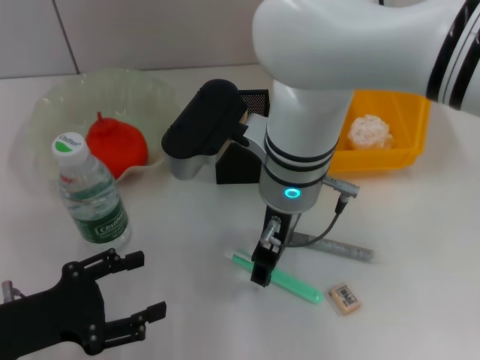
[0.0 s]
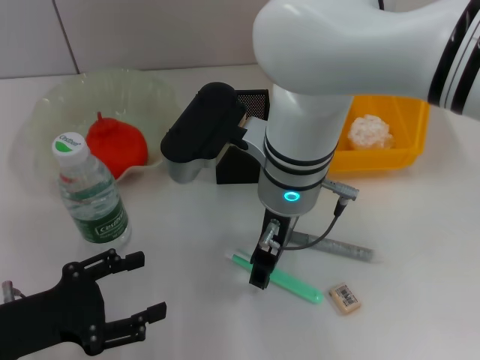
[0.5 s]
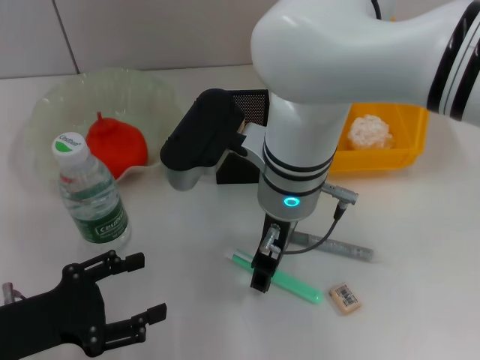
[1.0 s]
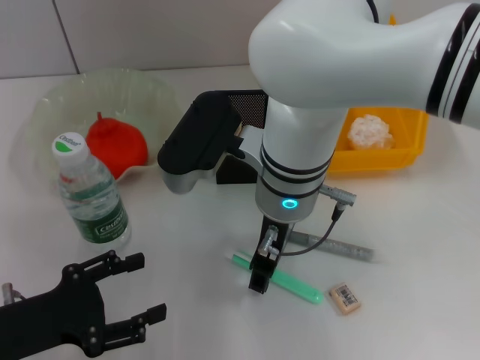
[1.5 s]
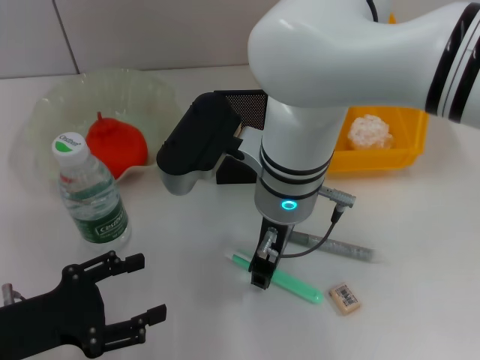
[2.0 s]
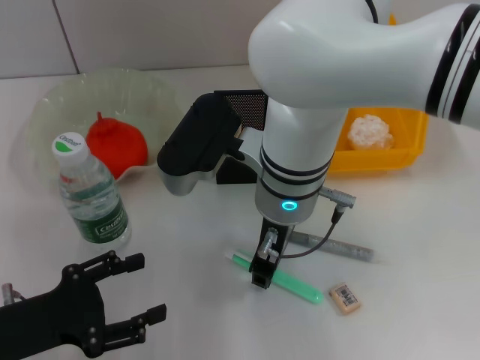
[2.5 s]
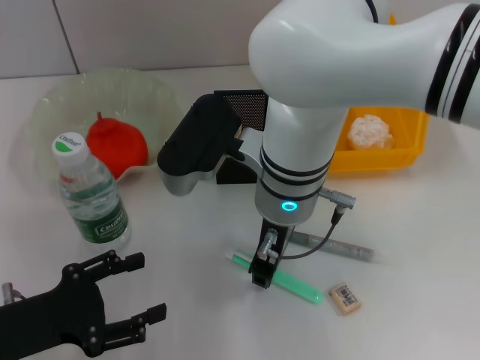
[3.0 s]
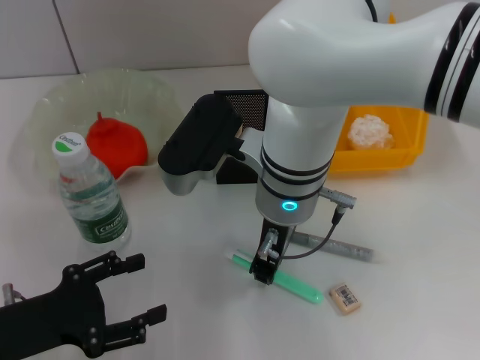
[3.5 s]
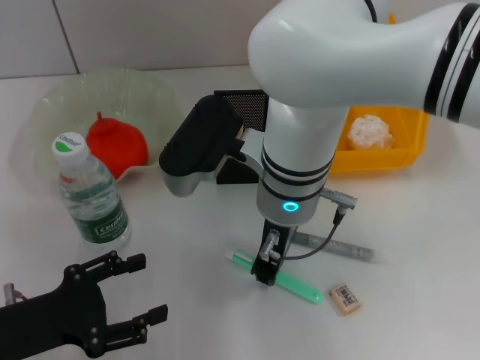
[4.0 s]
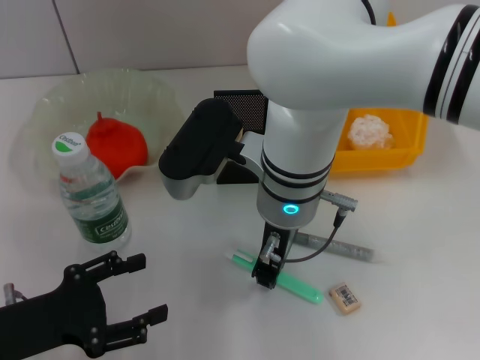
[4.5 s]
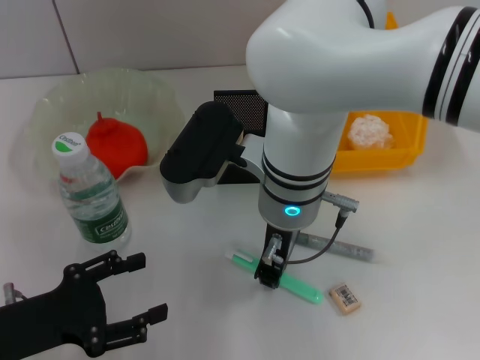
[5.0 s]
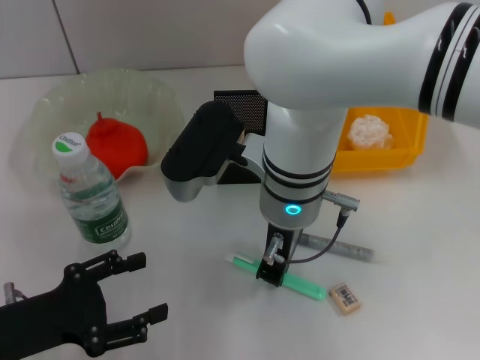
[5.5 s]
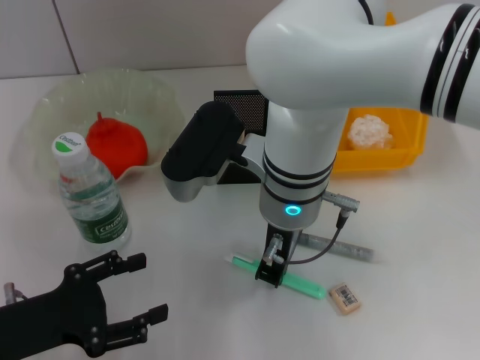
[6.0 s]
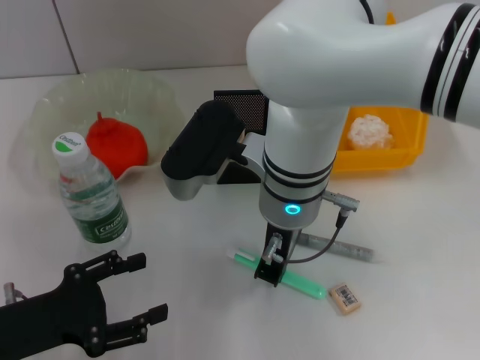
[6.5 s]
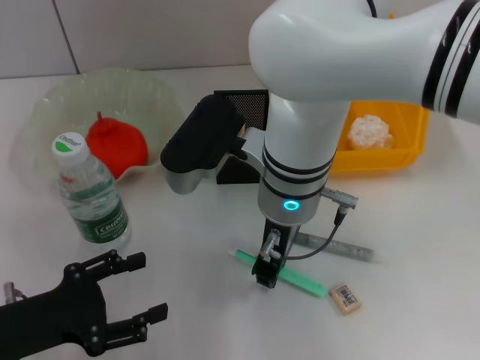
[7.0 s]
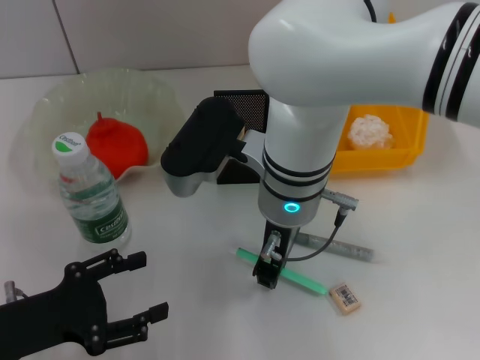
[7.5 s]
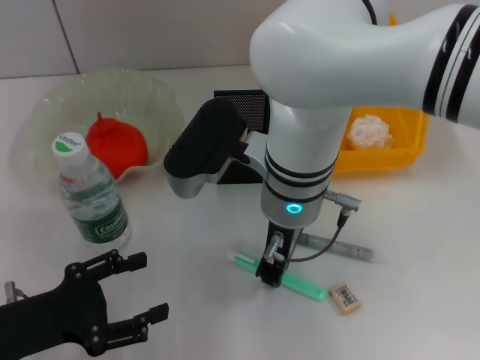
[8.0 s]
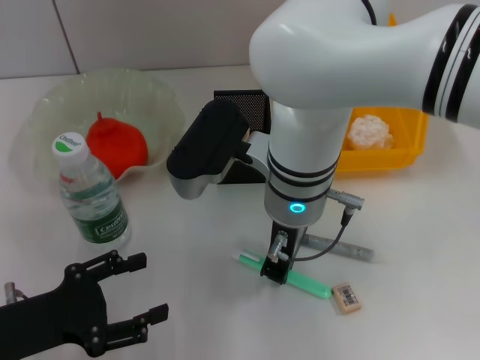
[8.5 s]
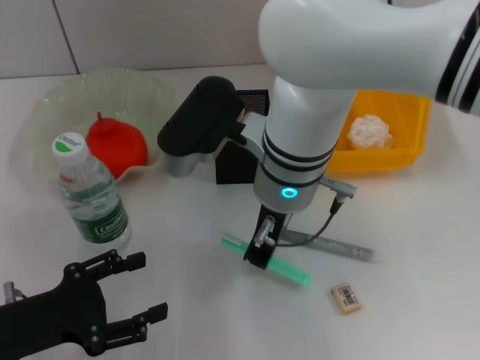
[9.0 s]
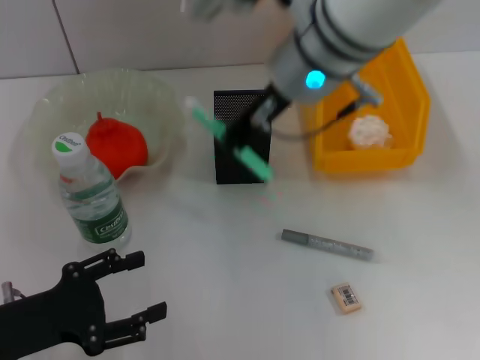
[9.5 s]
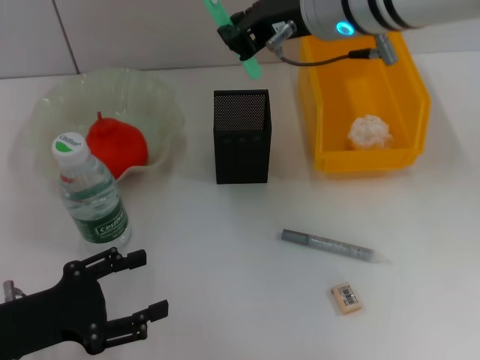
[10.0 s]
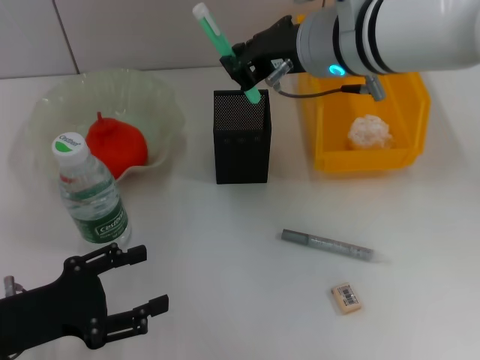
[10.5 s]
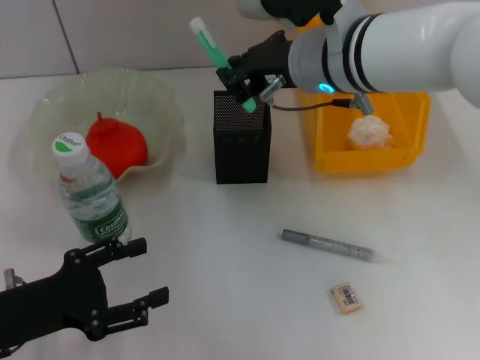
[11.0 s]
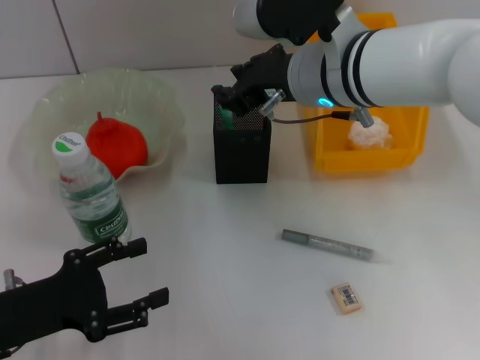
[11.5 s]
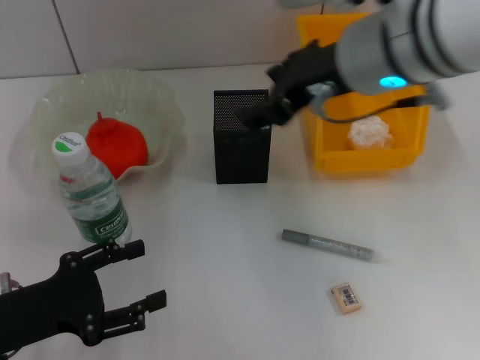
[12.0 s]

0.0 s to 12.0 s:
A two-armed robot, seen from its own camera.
Step, 0.0 to 8.5 s: Grab the blue utility knife with the right hand.
Step, 9.0 to 11.5 s: Place the blue utility knife into the pen holder with the right hand.
0.0 to 2.0 s: Neither gripper changes place.
2.0 to 4.0 s: The right gripper closes up.
4.0 to 8.0 s: Neither gripper changes place.
8.0 to 10.0 s: The right gripper moves upward and to the right, roughly 15 cm.
10.0 to 12.0 s: The right gripper opens up.

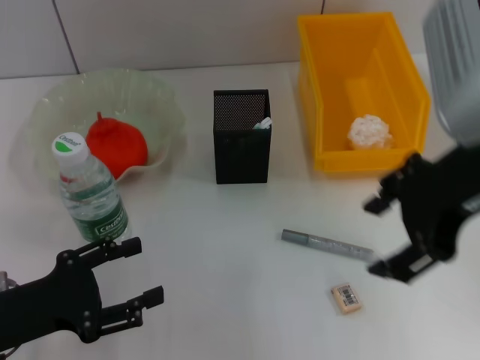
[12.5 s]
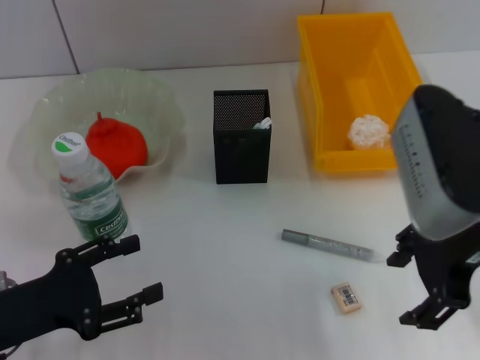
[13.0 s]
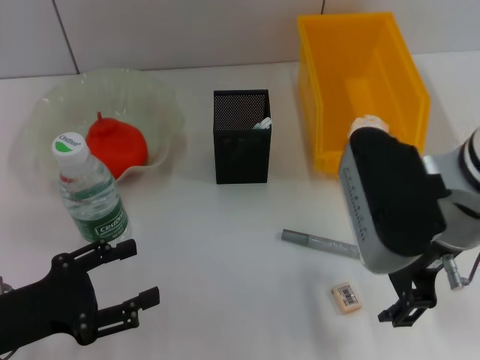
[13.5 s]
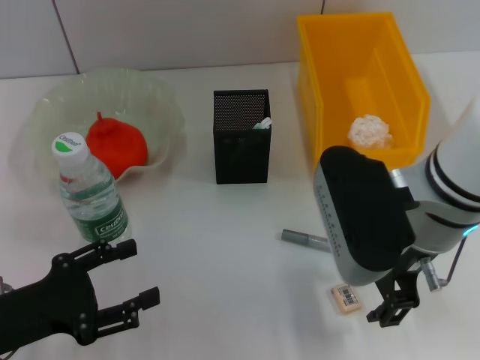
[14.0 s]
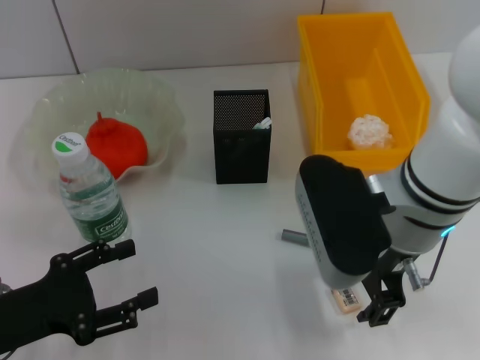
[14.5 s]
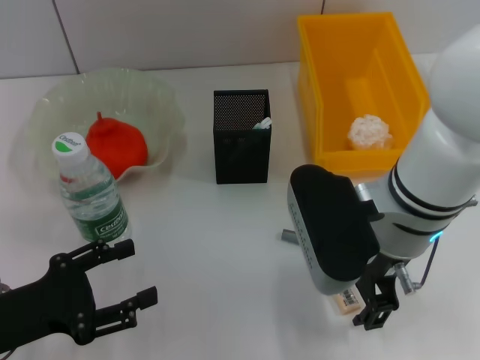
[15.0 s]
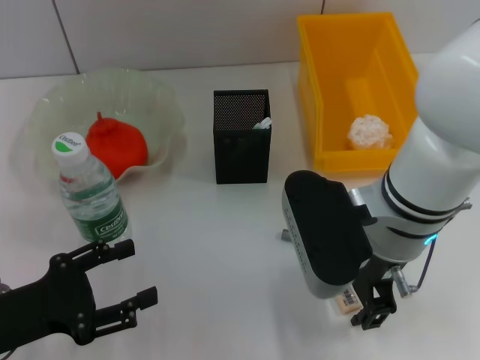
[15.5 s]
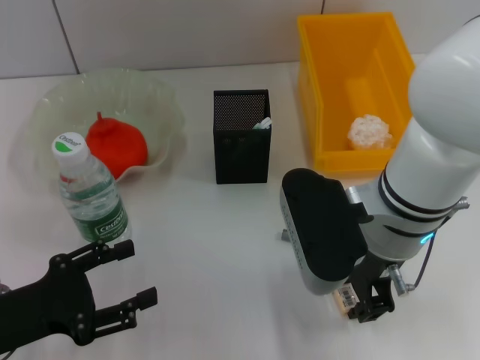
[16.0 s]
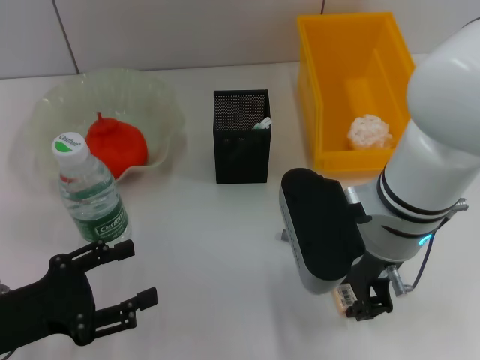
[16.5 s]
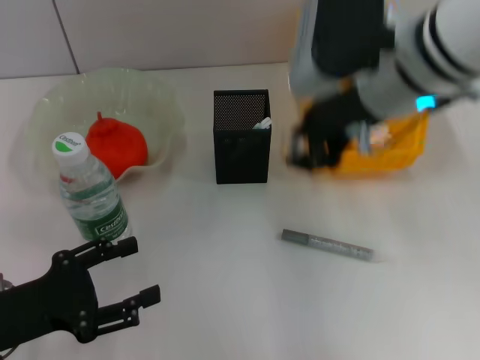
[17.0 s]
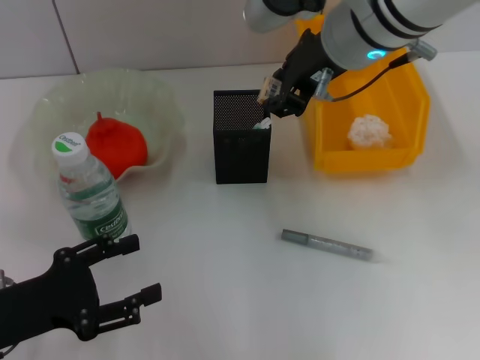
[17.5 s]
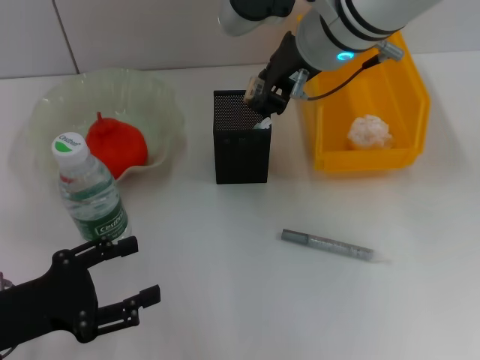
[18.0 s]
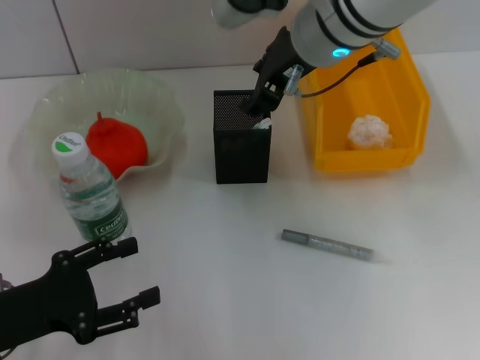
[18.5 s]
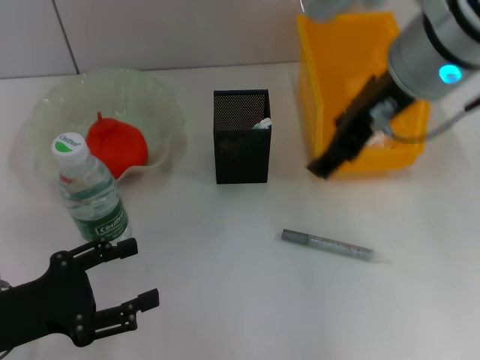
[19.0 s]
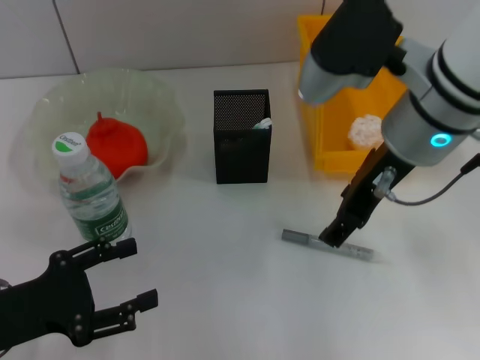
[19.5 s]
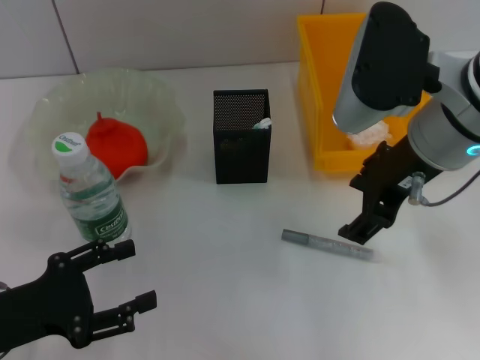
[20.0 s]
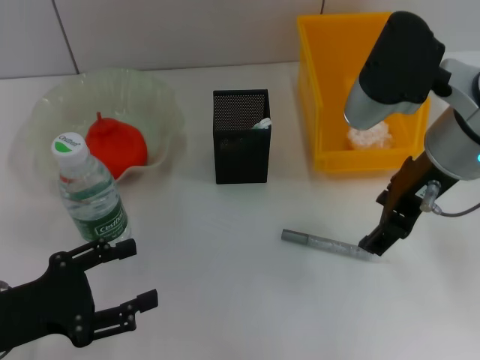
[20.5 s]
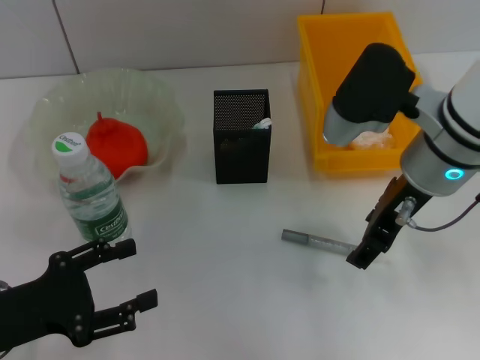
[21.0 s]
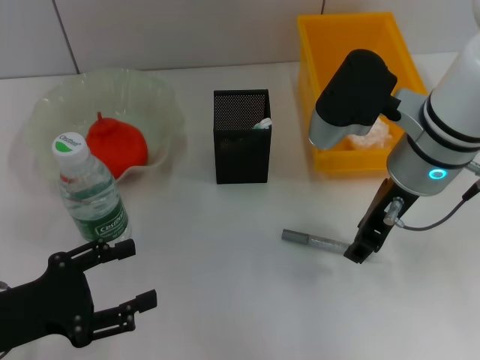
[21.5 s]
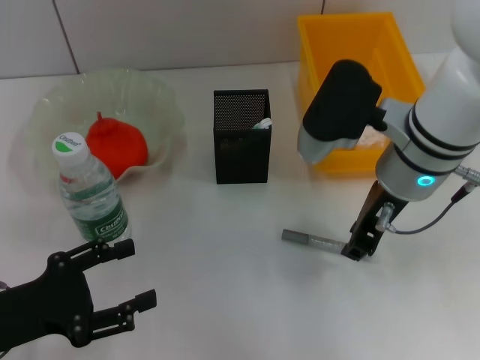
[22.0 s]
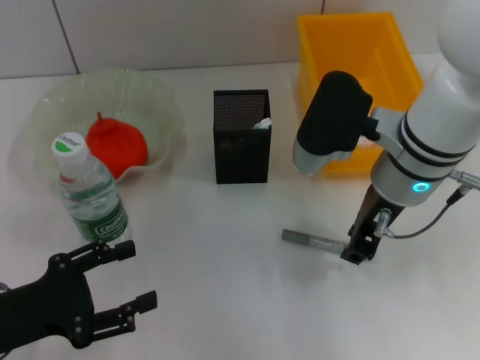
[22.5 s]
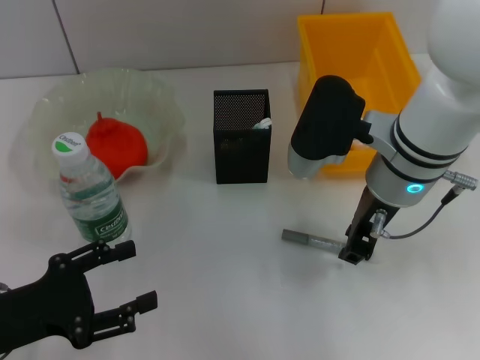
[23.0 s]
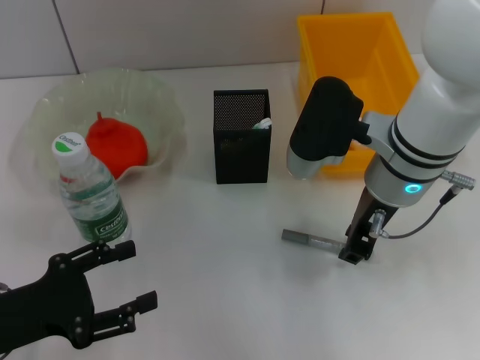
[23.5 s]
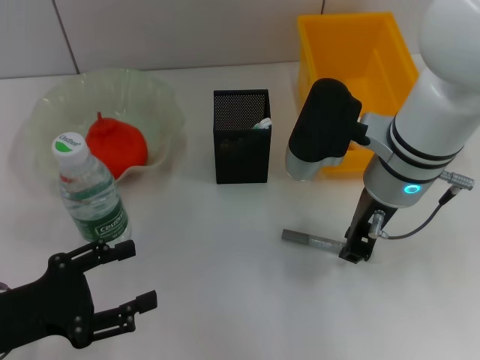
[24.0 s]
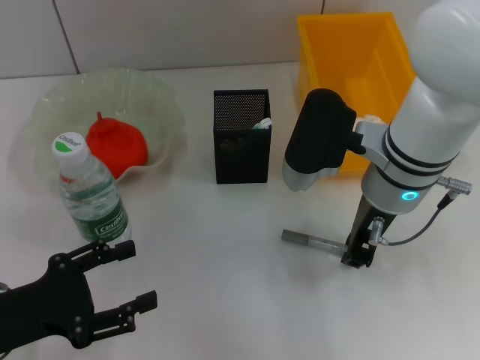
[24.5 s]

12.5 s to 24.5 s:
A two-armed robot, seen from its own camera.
Step, 12.5 to 16.0 s: Grab the eraser with the right hand.
Step, 16.5 to 18.0 s: Put the eraser into the pen holder with the right hand.
12.5 to 14.5 s: The right gripper travels downward and to the left by roughly 10 cm.
14.5 to 16.5 s: The right gripper closes.
16.5 to 18.5 s: The right gripper travels forward and upward by roughly 15 cm.
18.5 to 20.5 s: The right gripper is displaced to the right and backward by about 10 cm.
20.5 to 22.5 s: The right gripper is displaced downward by some 5 cm, and closes its fingers.
22.5 to 24.5 s: The grippers move only a little.

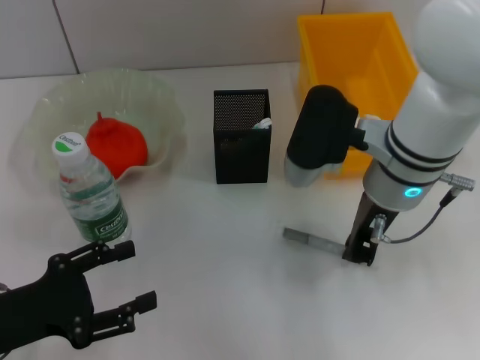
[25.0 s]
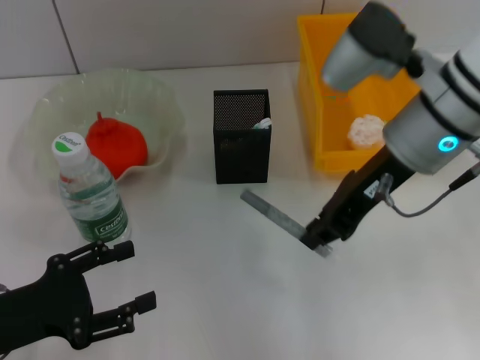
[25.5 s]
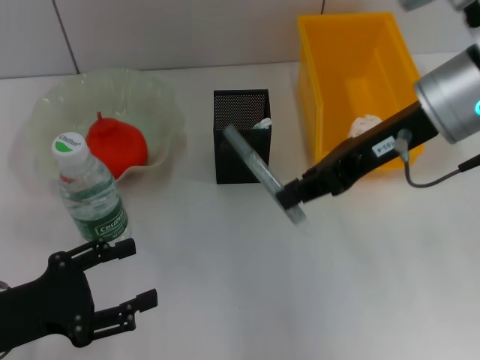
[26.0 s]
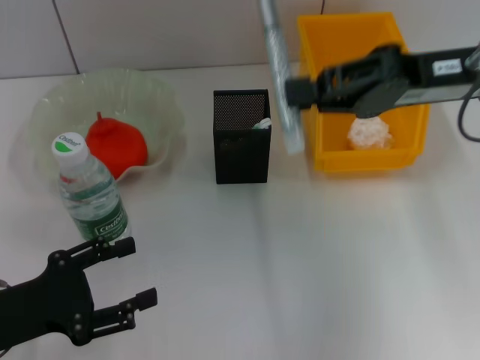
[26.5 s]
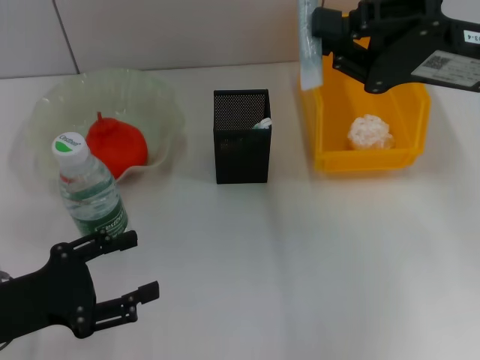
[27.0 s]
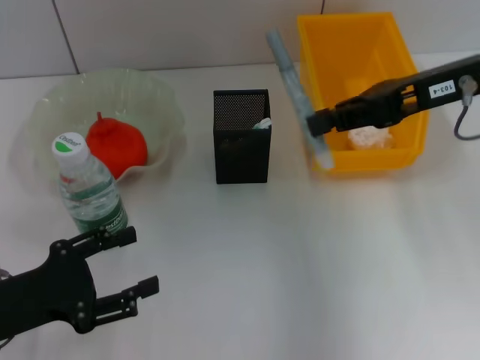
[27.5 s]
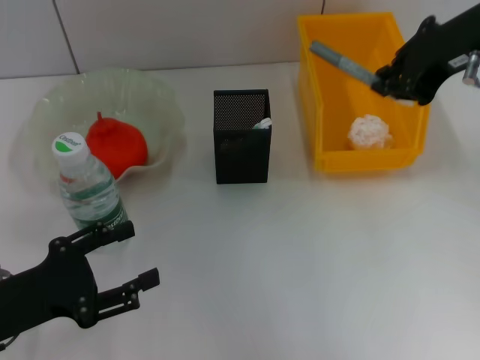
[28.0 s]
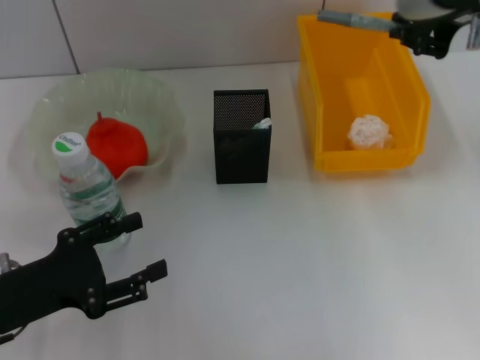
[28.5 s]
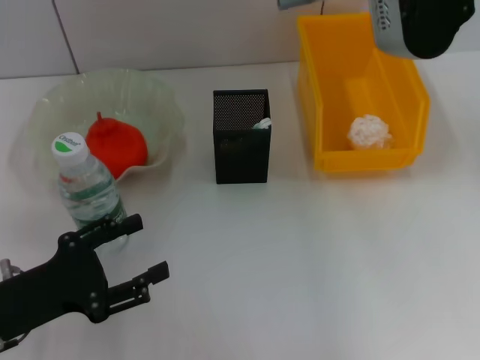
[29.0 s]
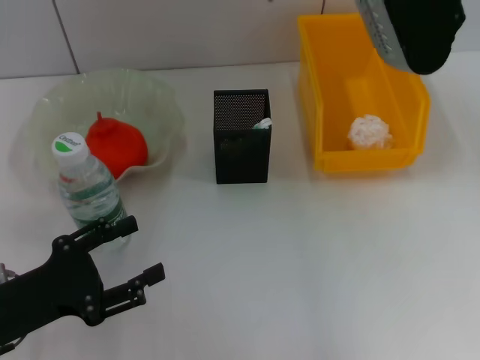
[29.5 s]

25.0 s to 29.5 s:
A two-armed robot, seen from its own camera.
25.0 to 27.0 s: The right gripper moves to the right and upward, roughly 10 cm.
27.0 to 29.5 s: The right gripper is displaced upward and to the left by some 15 cm.
